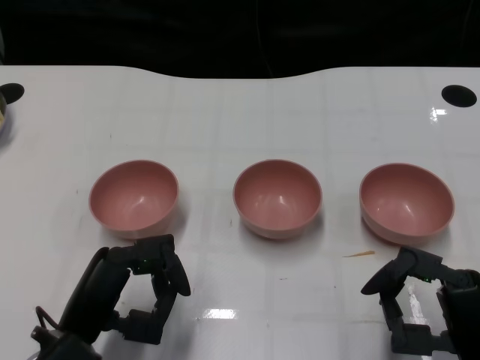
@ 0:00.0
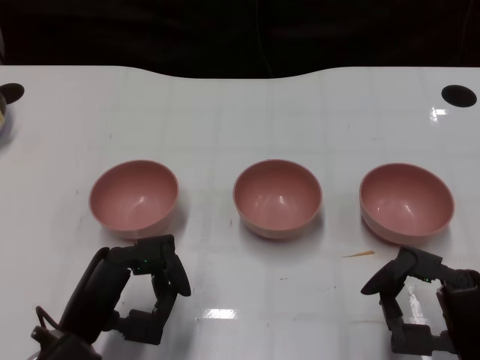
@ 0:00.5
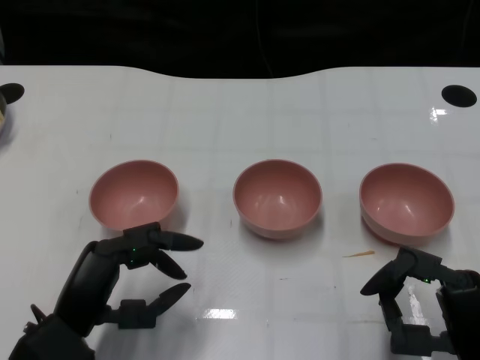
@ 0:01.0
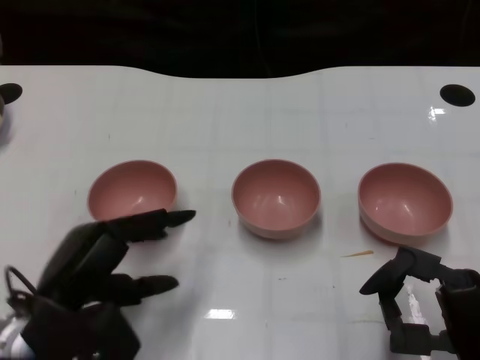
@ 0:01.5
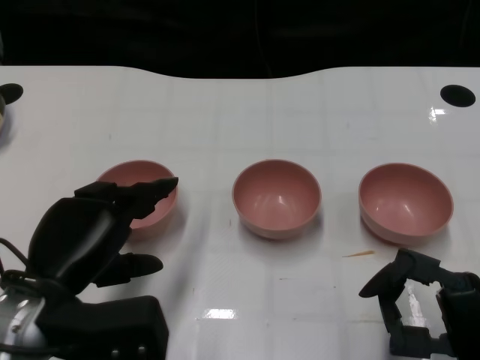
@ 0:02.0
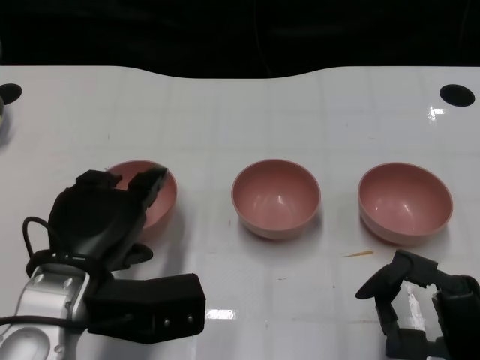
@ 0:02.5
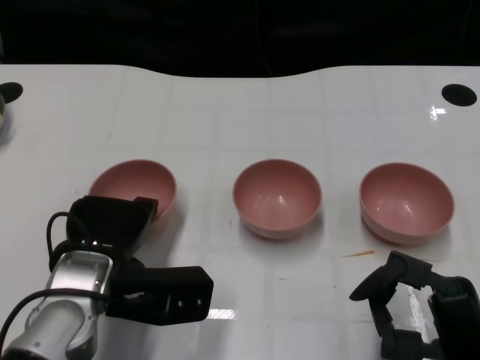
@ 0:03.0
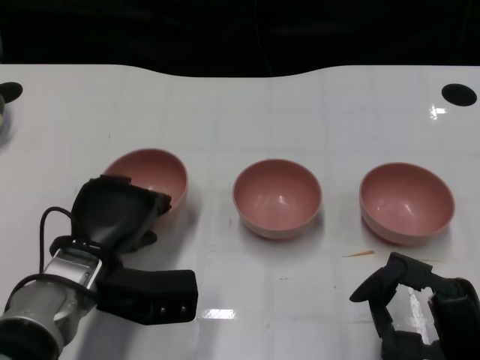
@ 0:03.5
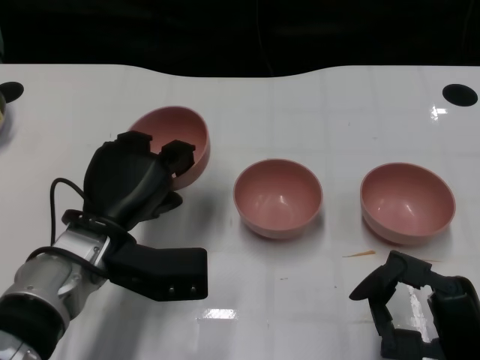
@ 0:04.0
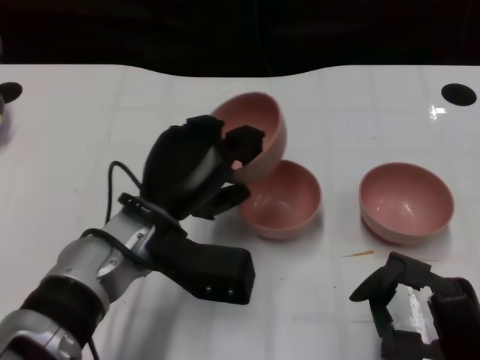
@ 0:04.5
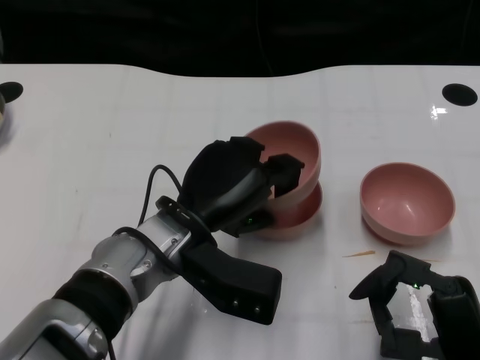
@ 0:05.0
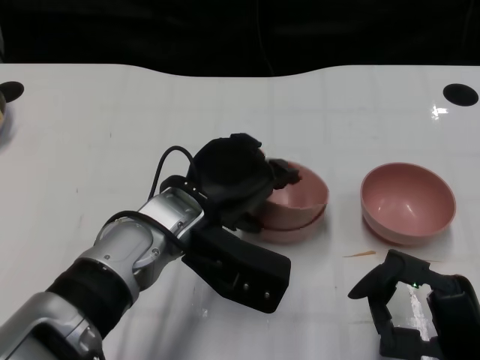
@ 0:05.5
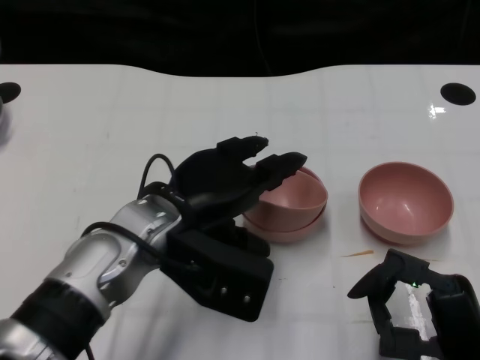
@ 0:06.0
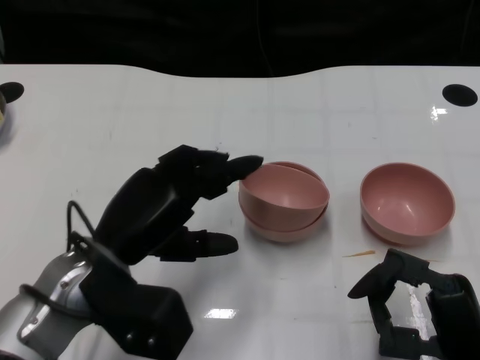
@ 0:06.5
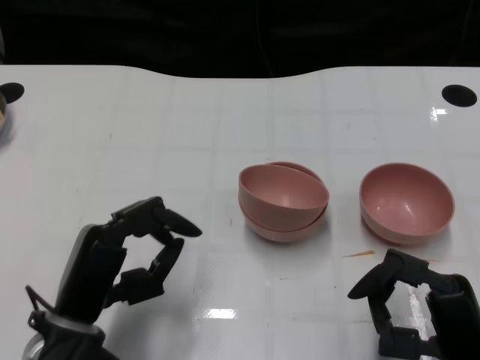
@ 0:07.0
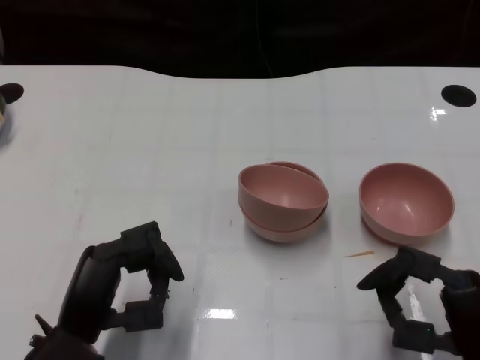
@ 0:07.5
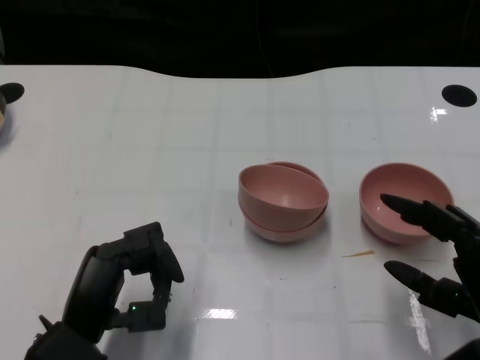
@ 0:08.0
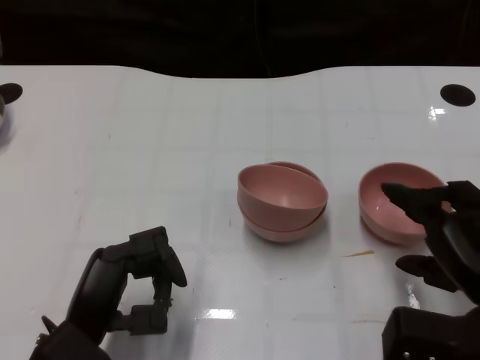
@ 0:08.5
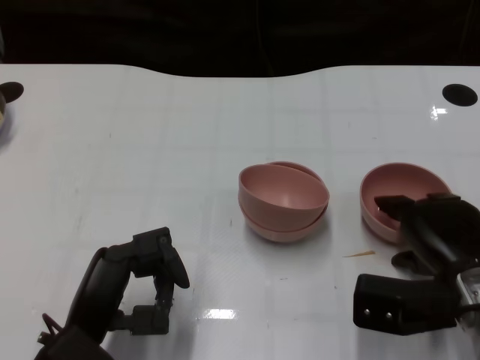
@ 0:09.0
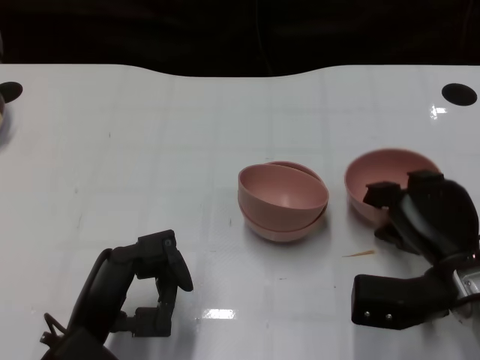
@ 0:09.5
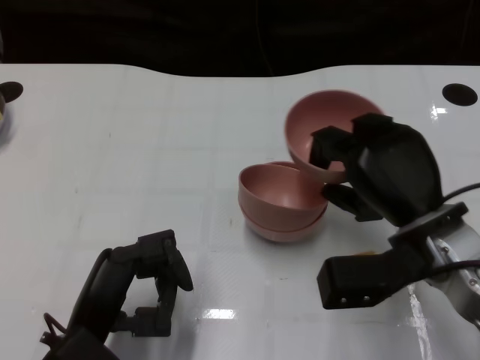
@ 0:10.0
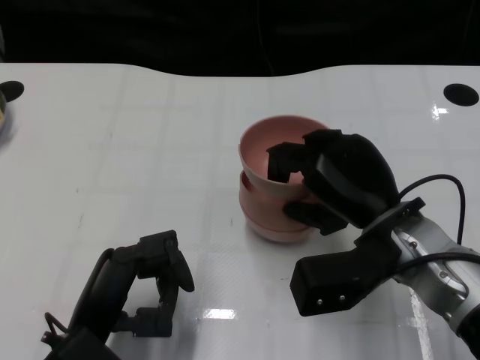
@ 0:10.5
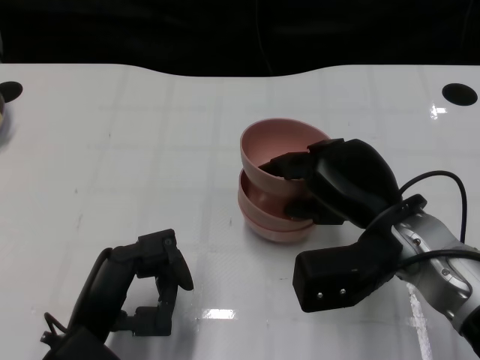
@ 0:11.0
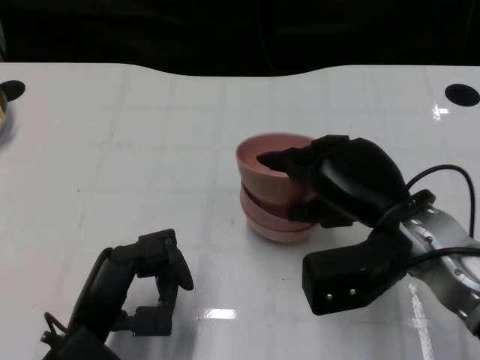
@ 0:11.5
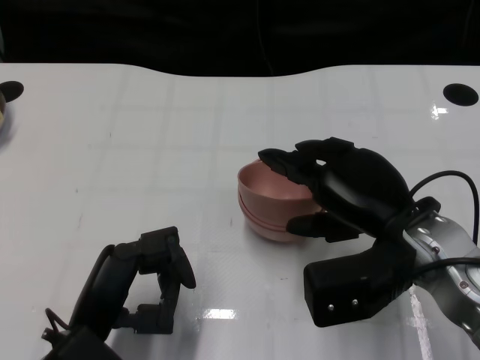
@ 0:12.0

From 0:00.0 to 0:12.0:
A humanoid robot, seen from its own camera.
Task of the whole recording: Pick up the bowl on one side of the table and place it on top of the middle bowl, then pick up the bowl on the other side of the table and place it on top of the middle bowls.
Step, from 0:01.0 to 0:03.0: Grasp the bowl on the left with the left gripper.
Step, from 0:04.0 to 0:06.0: Place the bowl on the left onto the bowl in the middle with left gripper.
Step, from 0:06.5 to 0:09.0: Grasp the bowl on the right with the right gripper.
From 0:02.0 to 0:04.0: The left hand shifts about 10 cm forward.
From 0:04.0 to 0:06.0: The left hand goes approximately 10 cm to the right and upward.
From 0:06.0 to 0:08.0: The left hand moves downward, backward and to the left, approximately 15 cm, while the right hand ends up approximately 5 cm from where it was.
From 0:08.0 to 0:10.0: The right hand goes roughly 10 cm forward and to the left.

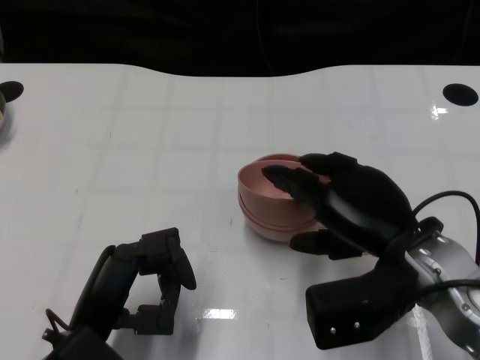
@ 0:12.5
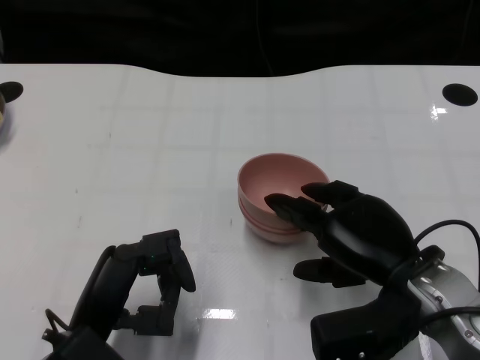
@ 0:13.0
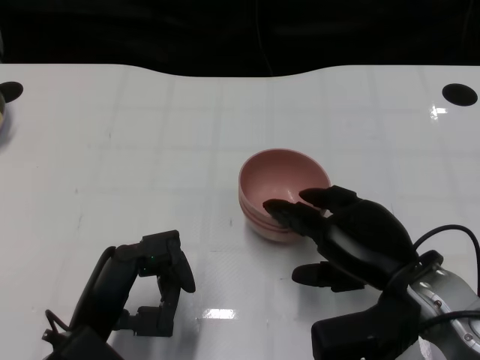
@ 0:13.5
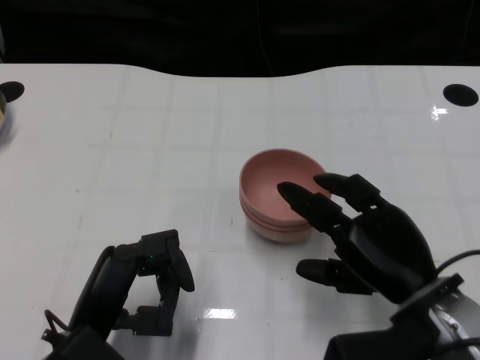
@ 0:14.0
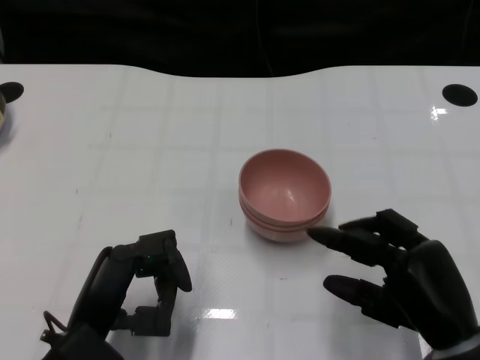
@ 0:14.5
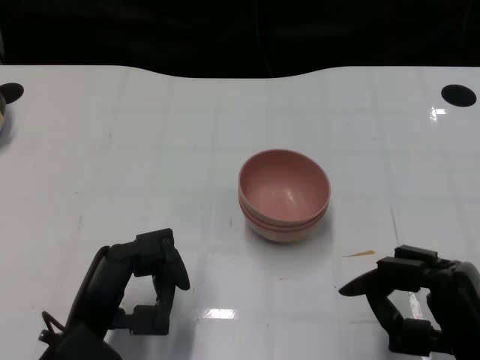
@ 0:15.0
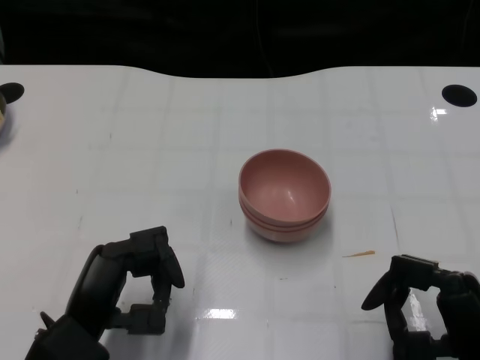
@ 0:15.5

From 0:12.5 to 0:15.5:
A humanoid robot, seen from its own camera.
Task of the whole recording: Pick up the bowl on one side of the table and place it on top of the middle bowl, then pick up the bowl on the other side of the table and place it on top of the middle bowls.
From 0:12.5 to 0:14.0: The hands make only small movements.
From 0:14.0 to 0:15.5: The right hand is displaced backward by some 5 cm.

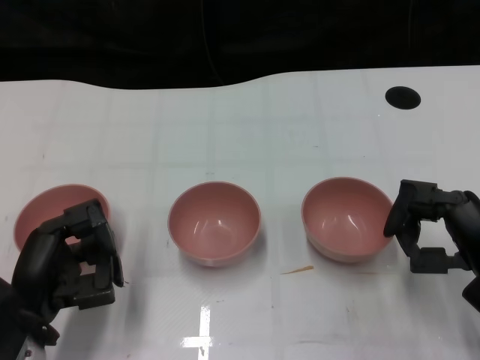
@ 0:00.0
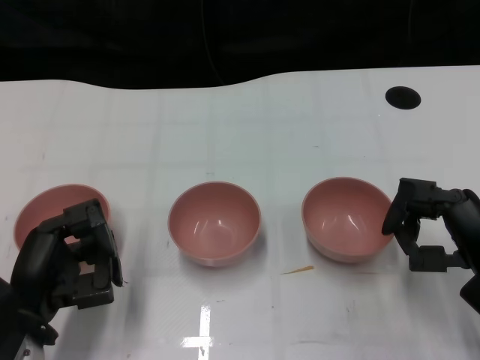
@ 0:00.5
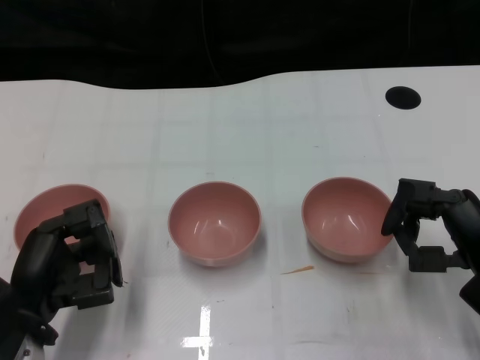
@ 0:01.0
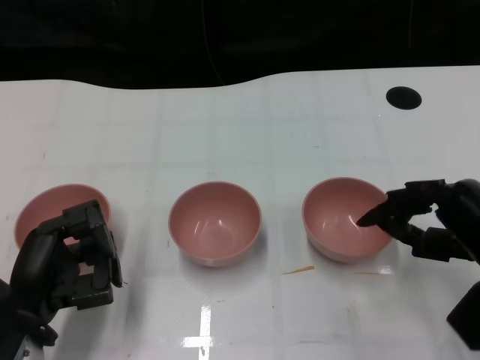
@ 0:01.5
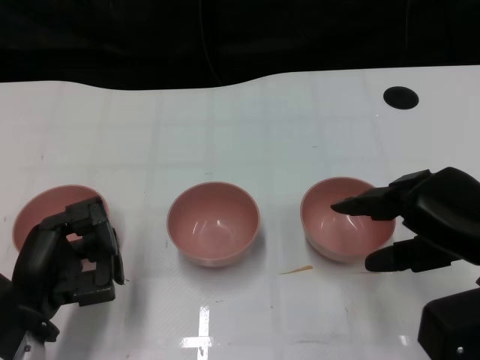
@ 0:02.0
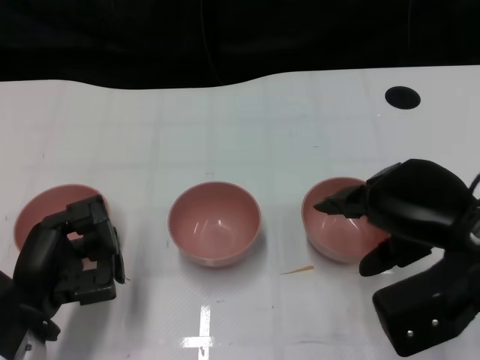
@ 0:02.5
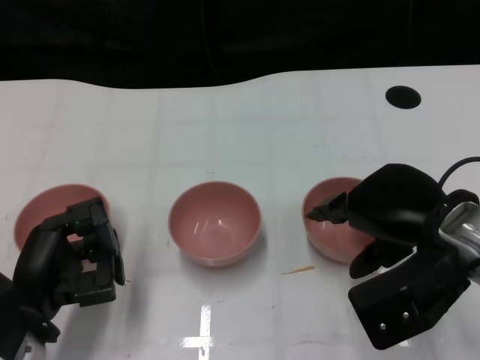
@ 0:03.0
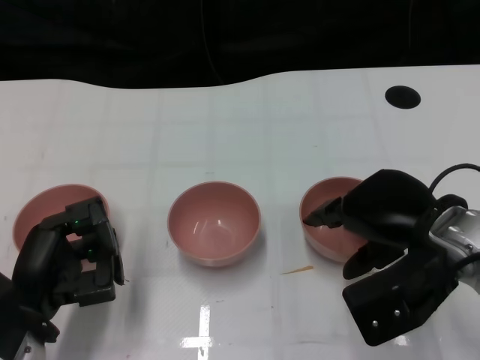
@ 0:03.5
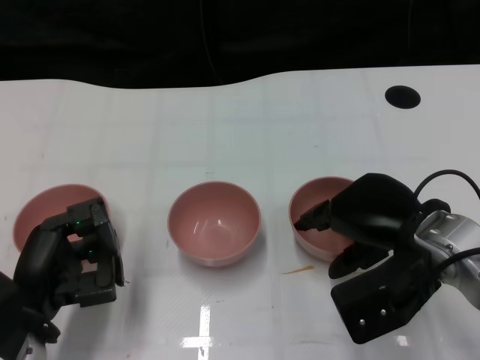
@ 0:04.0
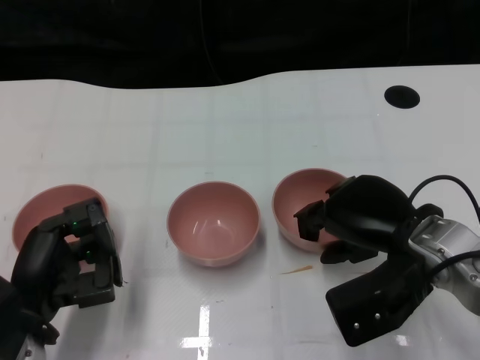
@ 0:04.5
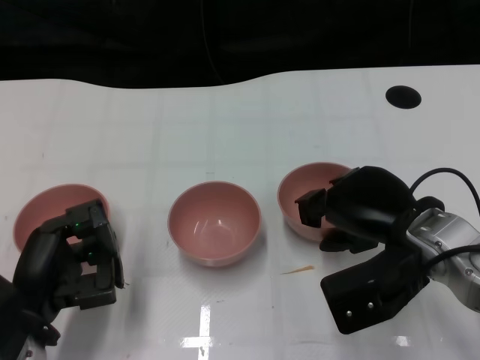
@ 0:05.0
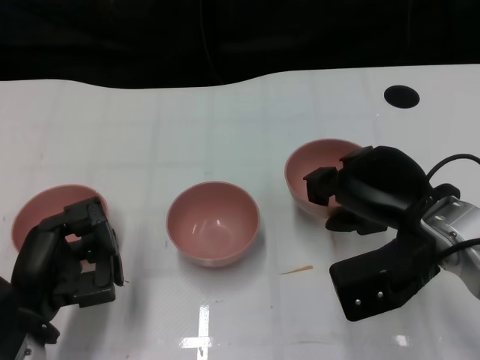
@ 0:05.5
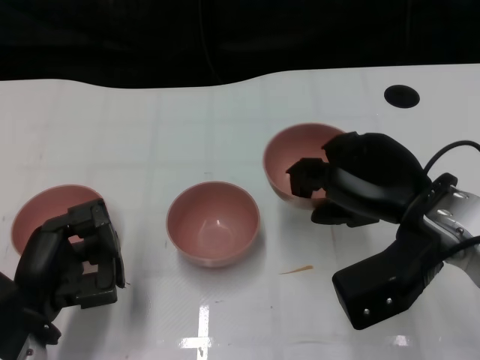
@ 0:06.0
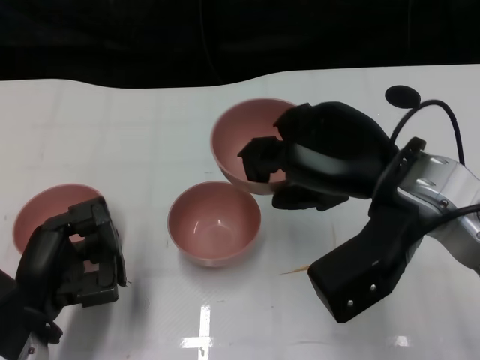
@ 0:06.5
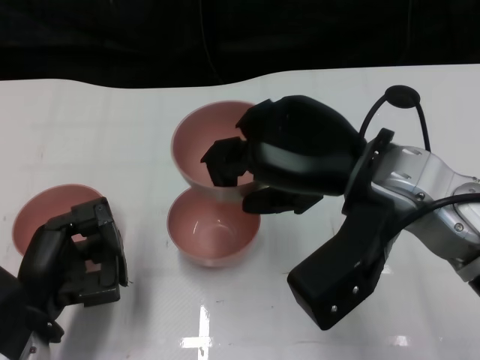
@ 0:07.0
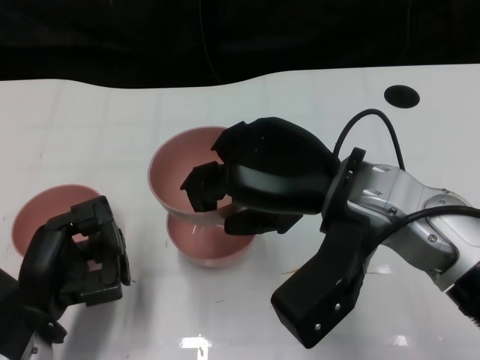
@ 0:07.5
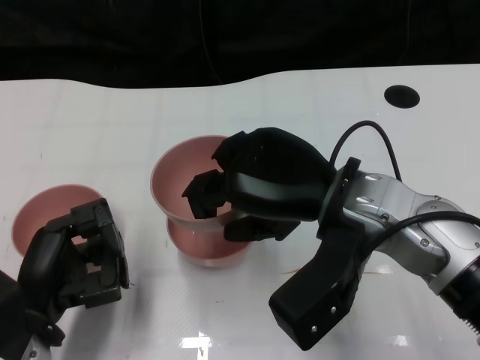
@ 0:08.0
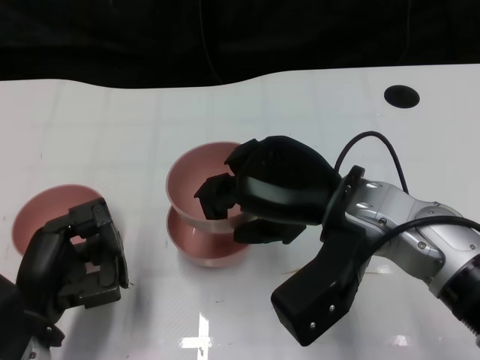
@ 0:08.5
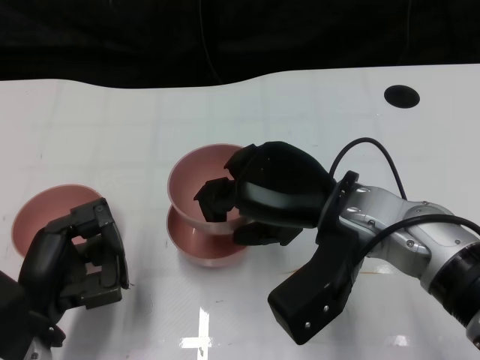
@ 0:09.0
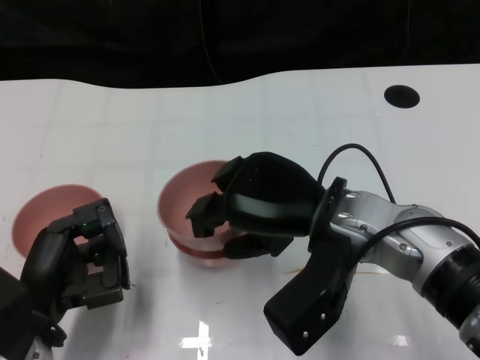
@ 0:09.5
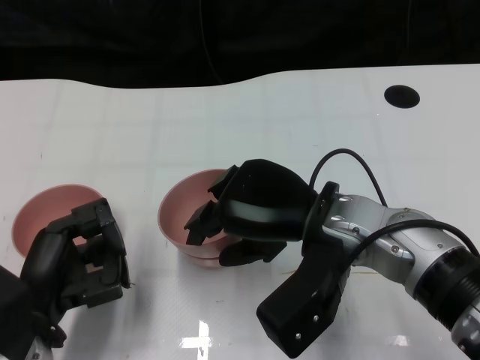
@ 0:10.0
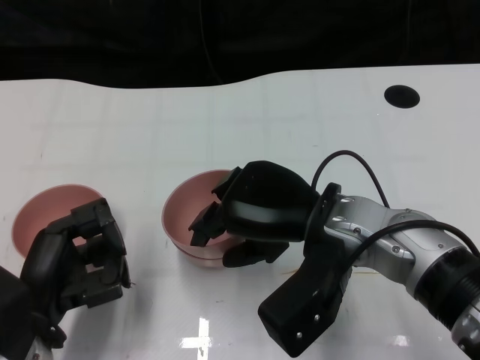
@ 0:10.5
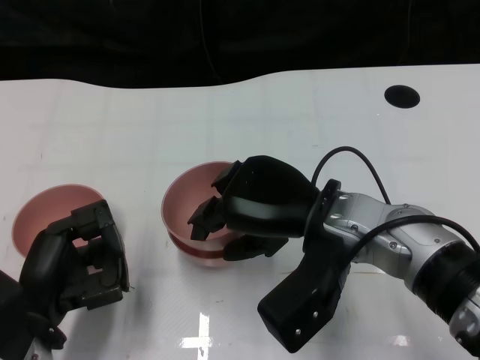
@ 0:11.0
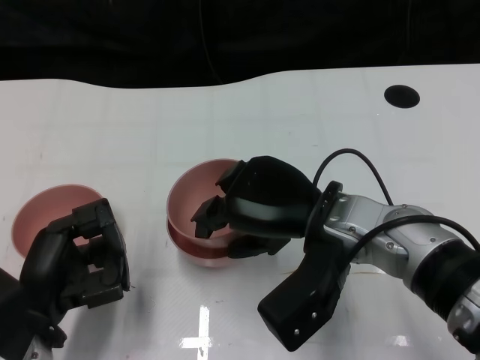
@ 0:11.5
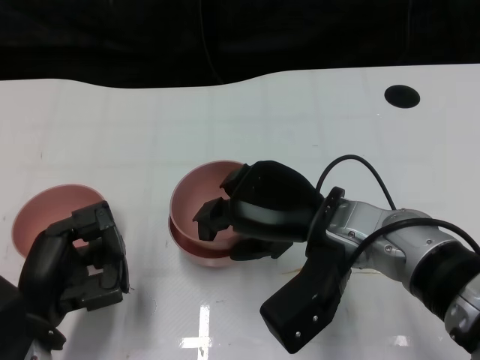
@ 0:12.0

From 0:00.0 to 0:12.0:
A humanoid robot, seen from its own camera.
Task of the whole recording: Pick up the bowl on one side of the table and place it on top of the middle bowl, then pick up the bowl on the other side of the table and place it on top of the middle bowls.
Step, from 0:01.5 to 0:05.0: Grasp the bowl on the right with the right gripper.
From 0:02.0 to 0:04.0: The right hand travels to the left by roughly 5 cm.
From 0:04.0 to 0:06.0: The hands stay close to where they were, moving slightly.
From 0:06.0 to 0:08.0: The right hand heads to the left, covering about 10 cm.
From 0:08.0 to 0:10.0: The hands make only small movements.
From 0:10.0 to 0:12.0: The hands stay close to where they were, moving slightly.
